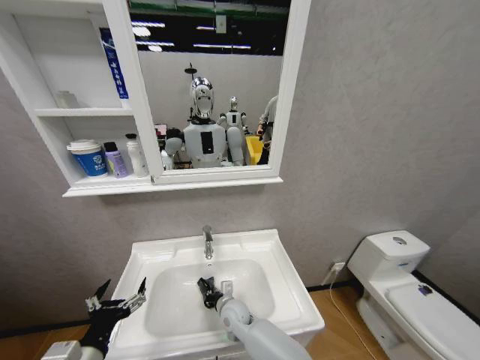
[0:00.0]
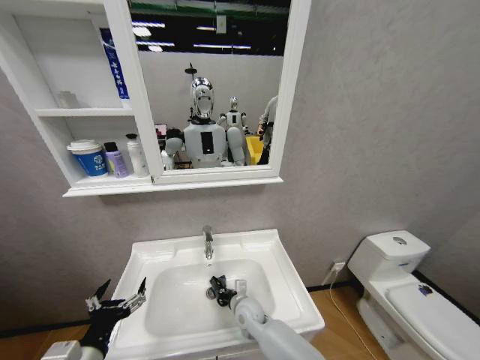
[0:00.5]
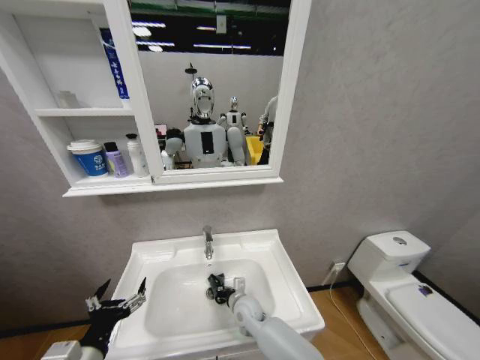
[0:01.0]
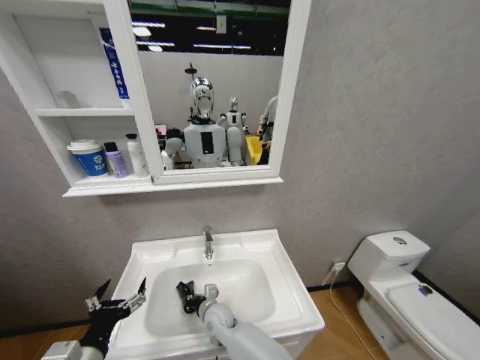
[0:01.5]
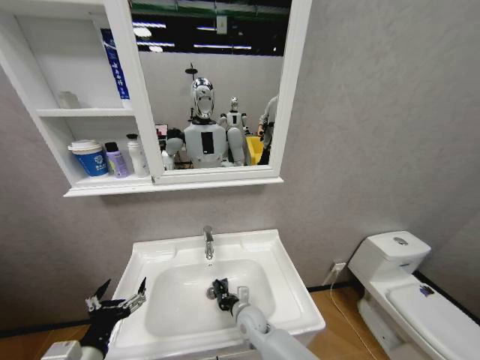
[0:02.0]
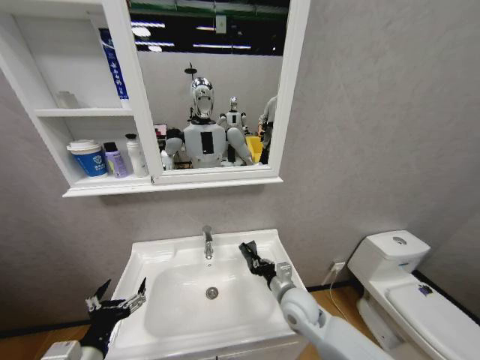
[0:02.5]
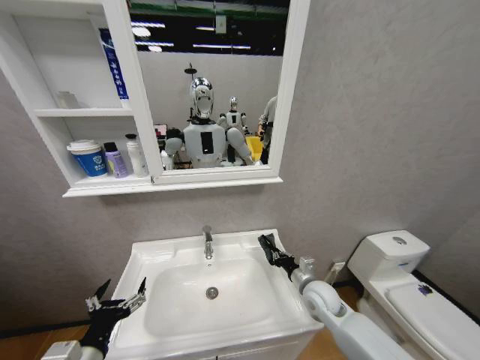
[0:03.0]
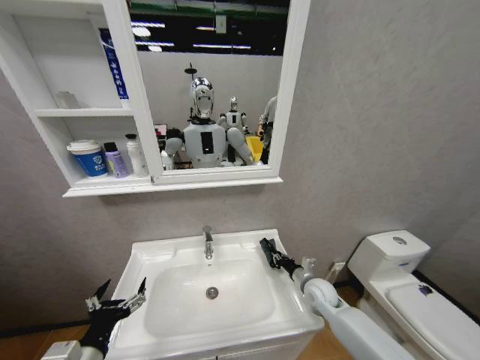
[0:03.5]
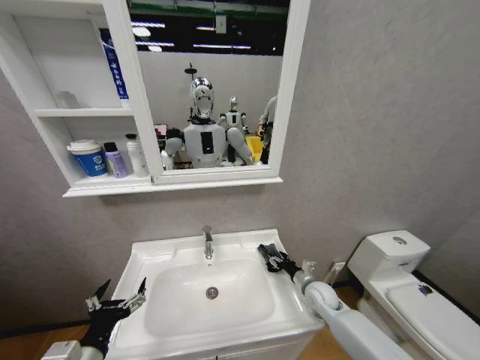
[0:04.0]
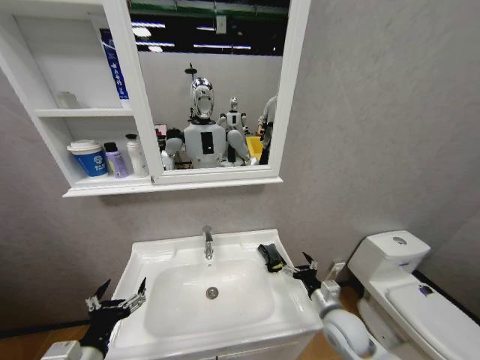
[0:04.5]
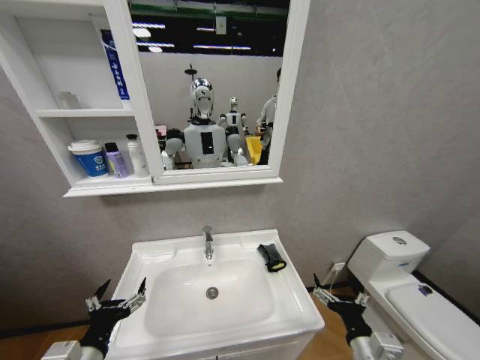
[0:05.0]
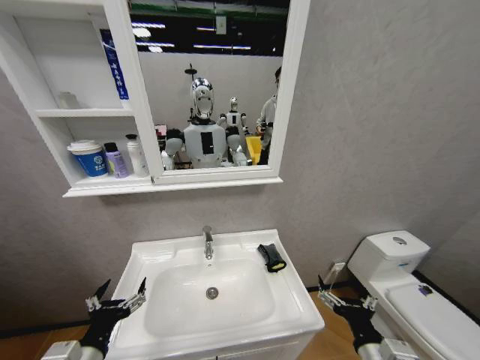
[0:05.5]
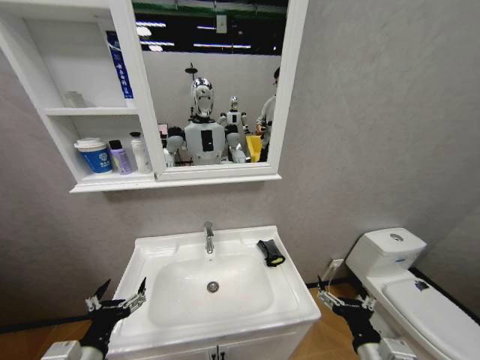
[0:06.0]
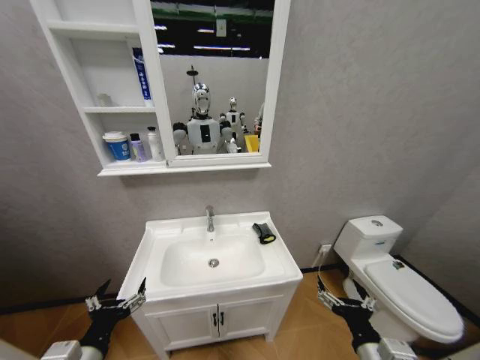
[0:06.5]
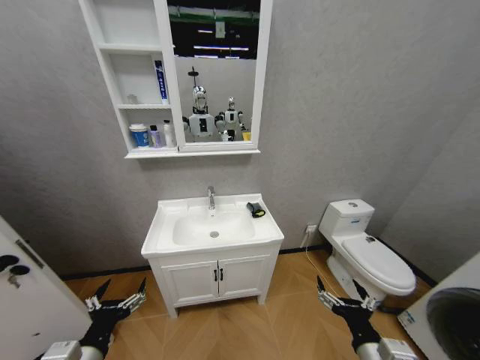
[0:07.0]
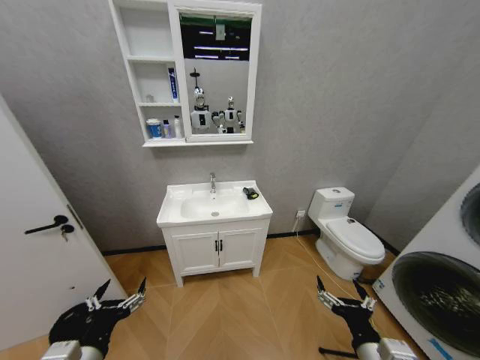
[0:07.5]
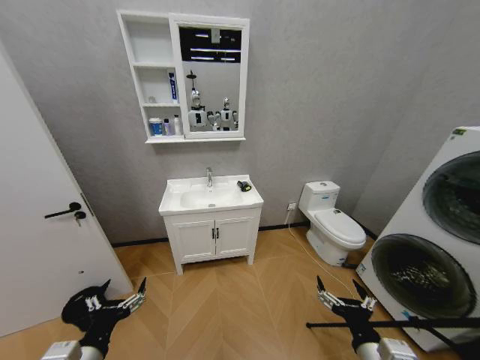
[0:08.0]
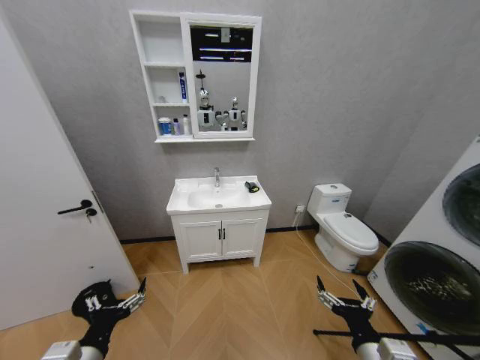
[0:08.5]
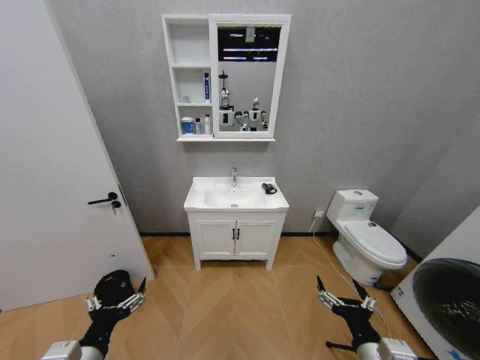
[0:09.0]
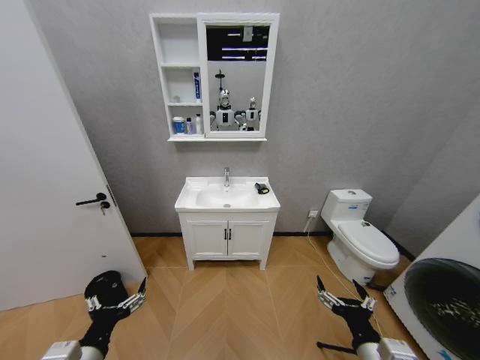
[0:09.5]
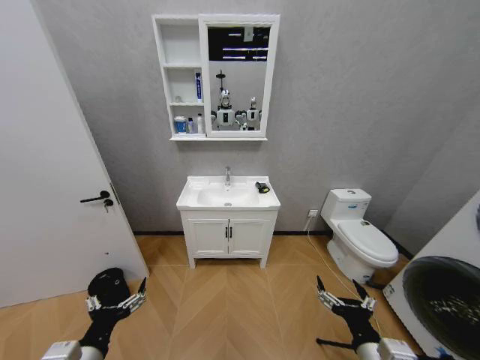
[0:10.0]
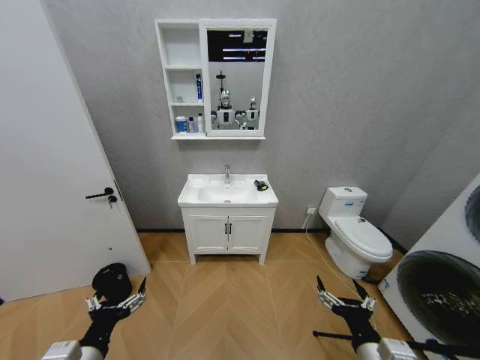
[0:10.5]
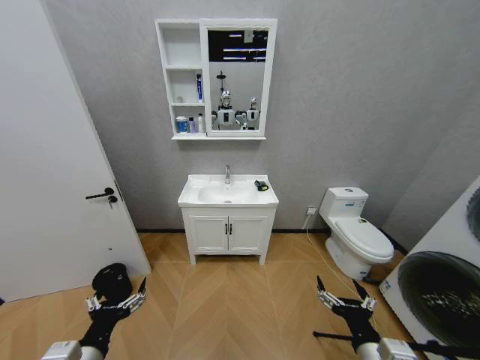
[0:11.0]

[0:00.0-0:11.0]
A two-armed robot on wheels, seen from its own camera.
Task of the whole recording: Move facial cleanser and shampoo from washbasin to cabinet, then wipe washbasin with towel.
0:00.0 to 0:02.0: The right gripper moves left and right over some 10 cm, changing direction 2 times.
0:02.0 to 0:03.5: The right gripper shifts roughly 25 cm to the right.
0:03.5 to 0:05.5: The right gripper travels backward and upward by approximately 30 cm, and opens.
0:09.0 to 0:11.0: The two grippers keep their place.
